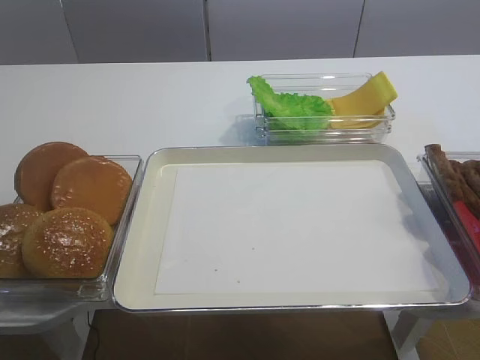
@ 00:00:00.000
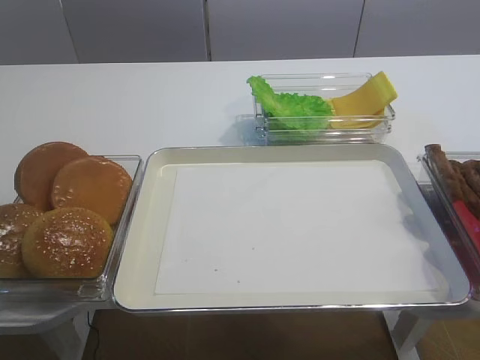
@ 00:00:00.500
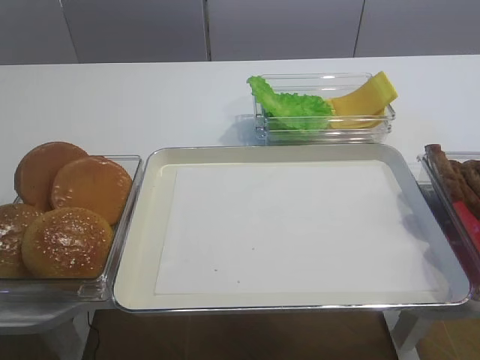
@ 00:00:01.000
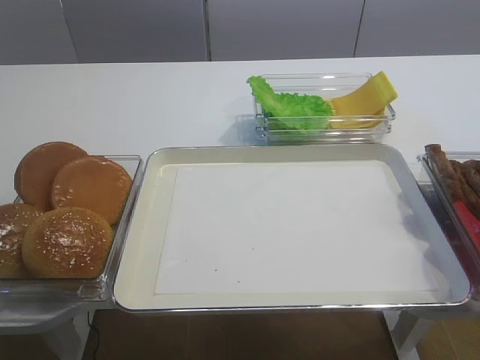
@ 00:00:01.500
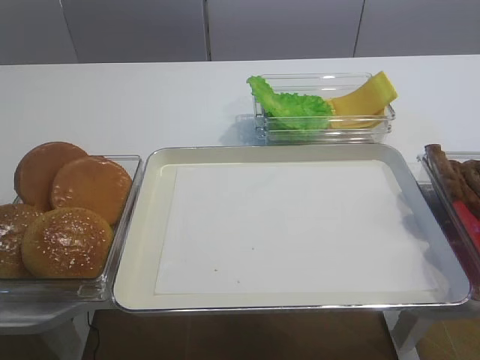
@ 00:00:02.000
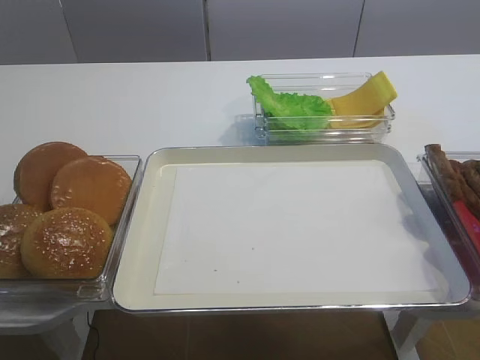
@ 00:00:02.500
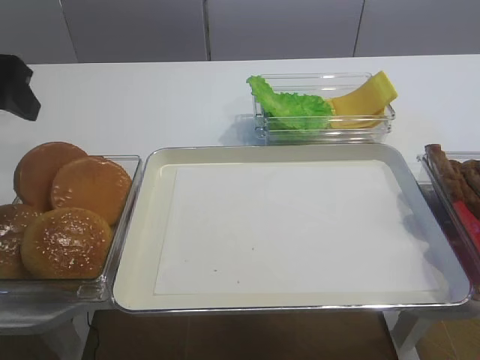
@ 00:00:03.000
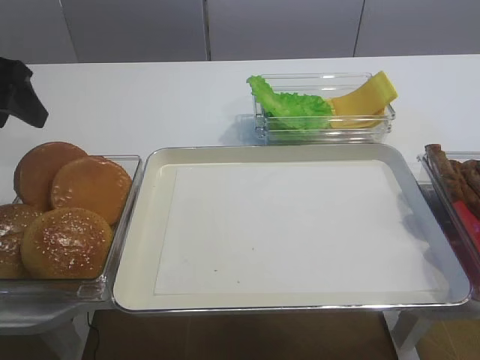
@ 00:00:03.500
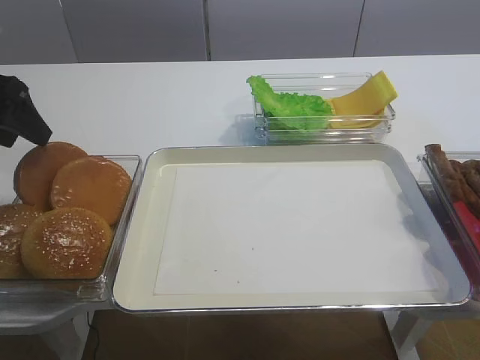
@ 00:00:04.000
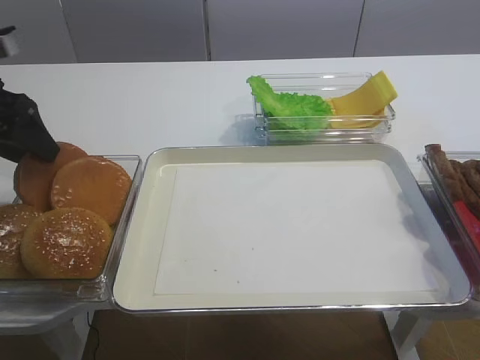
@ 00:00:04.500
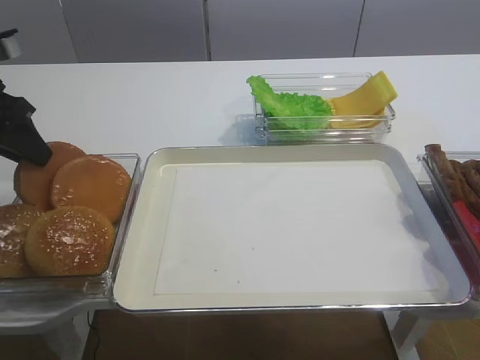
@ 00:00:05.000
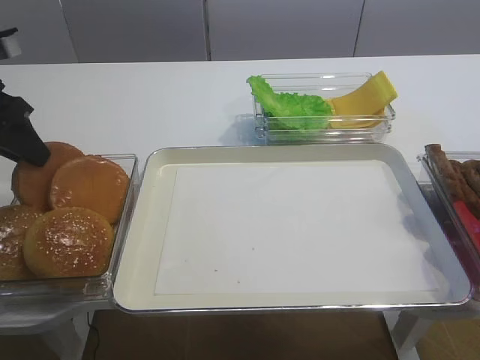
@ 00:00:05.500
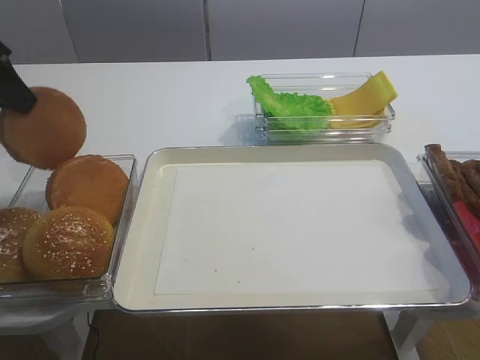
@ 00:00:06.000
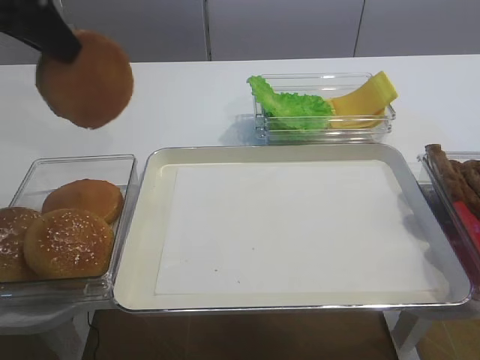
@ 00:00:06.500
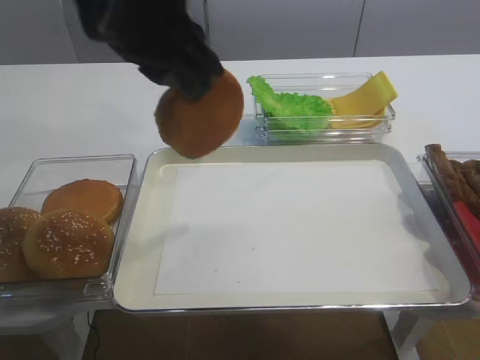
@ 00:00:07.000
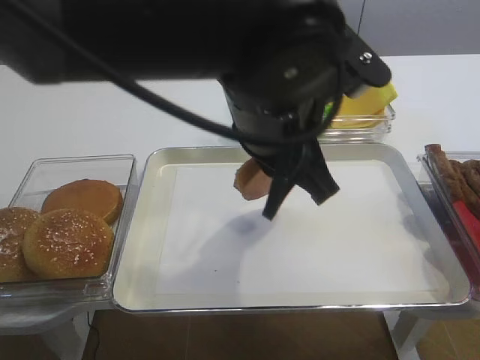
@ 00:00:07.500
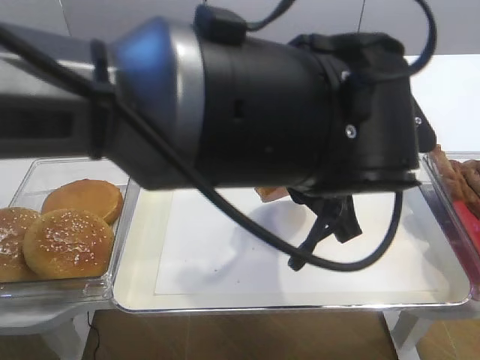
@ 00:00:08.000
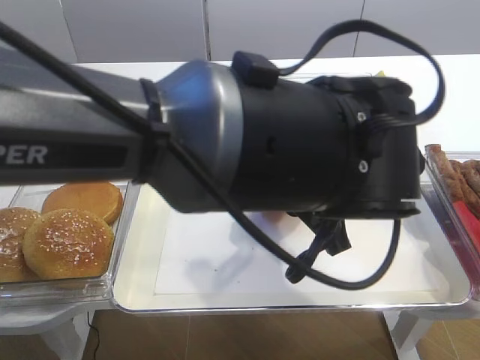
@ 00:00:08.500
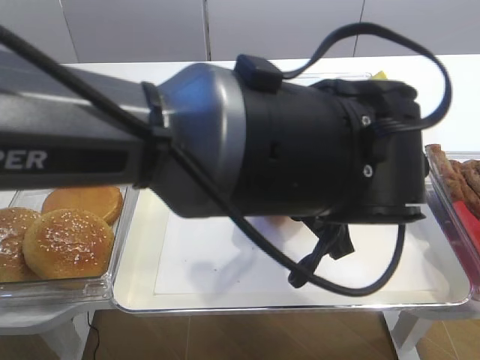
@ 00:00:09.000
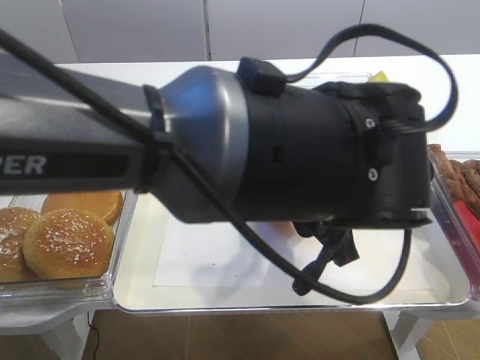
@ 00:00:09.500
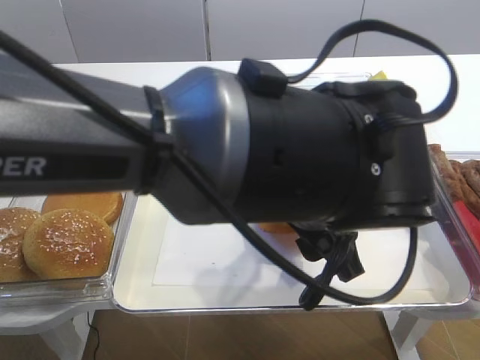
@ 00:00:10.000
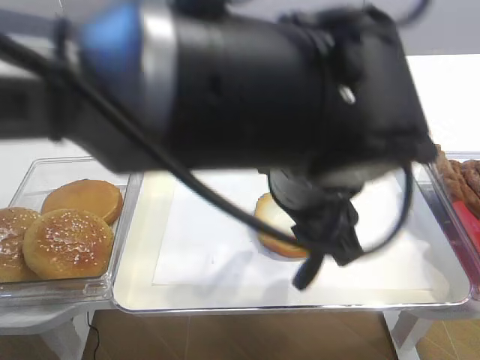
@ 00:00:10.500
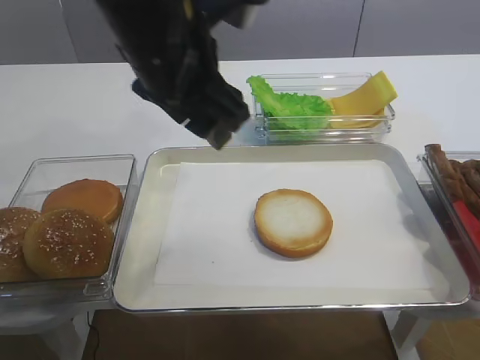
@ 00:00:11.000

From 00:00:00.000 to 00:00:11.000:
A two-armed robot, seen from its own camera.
Step, from 00:00:00.000 to 00:00:05.500: Pick up the bread slice with the left gripper.
Step, from 00:00:06.000 to 00:00:10.000: Place the bread slice on the tray with the left gripper.
From 00:00:02.000 to 00:00:03.500: The left gripper moves forward, approximately 20 cm.
From 00:00:03.500 to 00:00:05.500: The left gripper closes.
From 00:00:05.500 to 00:00:07.500: The left gripper moves to the right, roughly 35 cm.
From 00:00:09.000 to 00:00:11.000: The left gripper goes approximately 25 cm to the left and upward, and opens up.

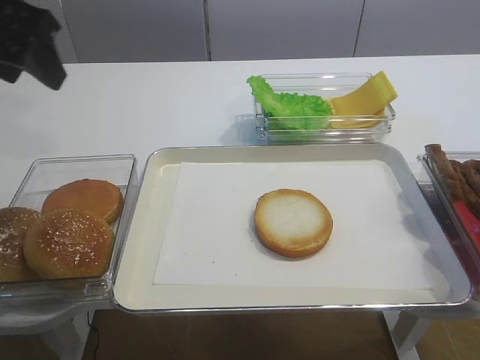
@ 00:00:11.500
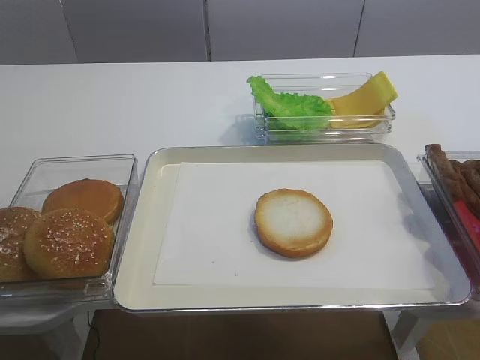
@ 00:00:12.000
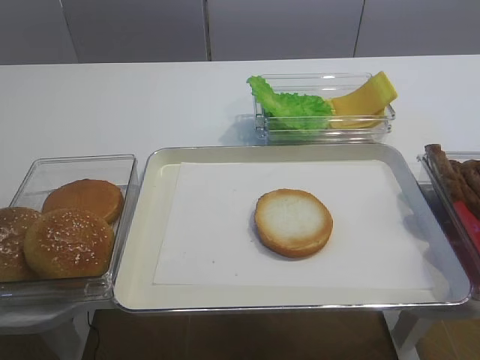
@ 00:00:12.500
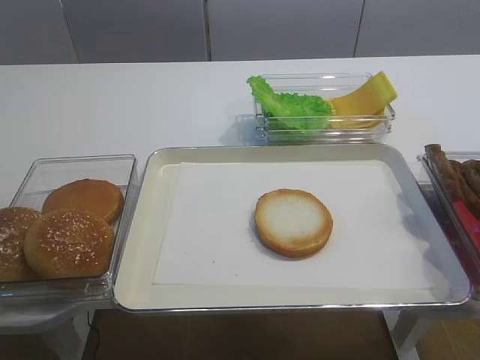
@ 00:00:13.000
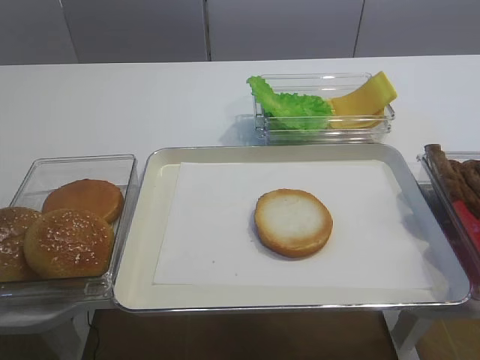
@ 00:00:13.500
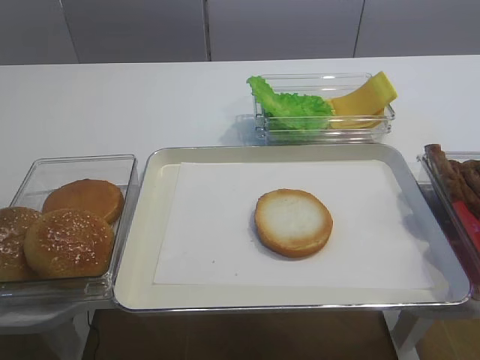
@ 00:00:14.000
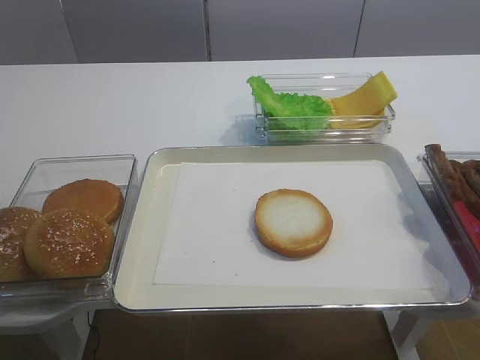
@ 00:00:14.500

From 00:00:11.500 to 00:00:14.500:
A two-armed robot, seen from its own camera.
From 00:00:11.500 to 00:00:13.000: The left gripper moves backward, approximately 25 cm.

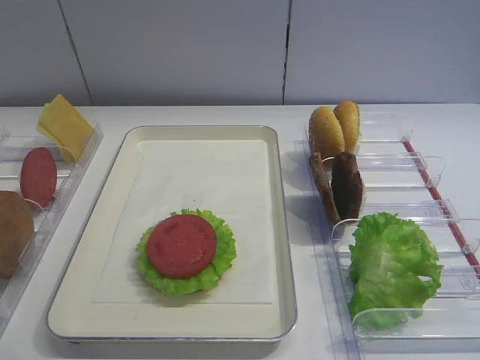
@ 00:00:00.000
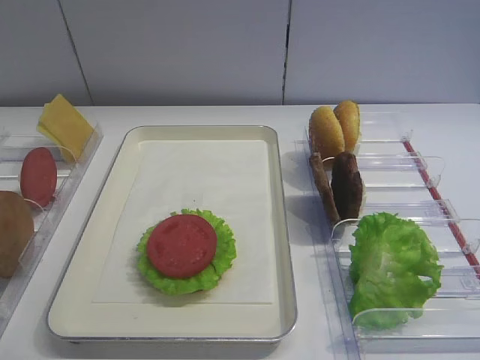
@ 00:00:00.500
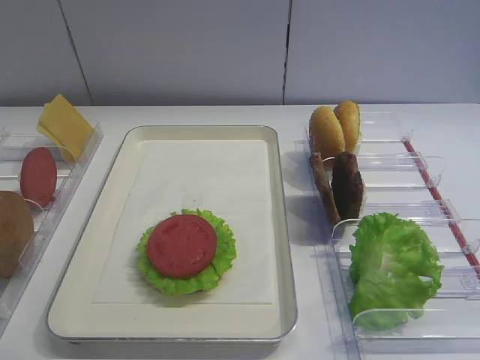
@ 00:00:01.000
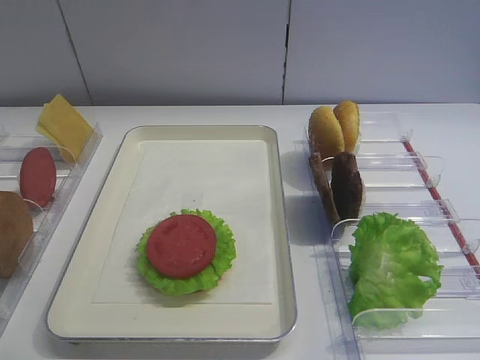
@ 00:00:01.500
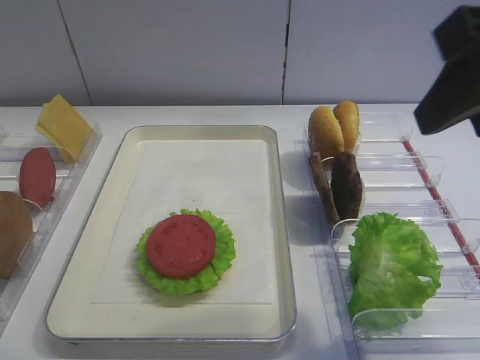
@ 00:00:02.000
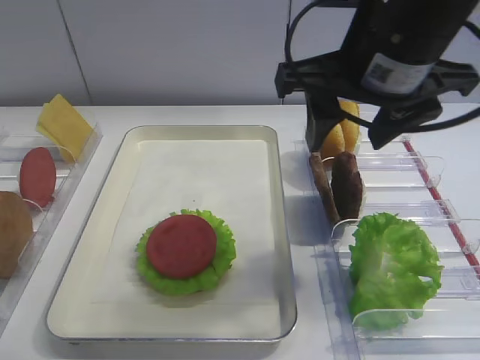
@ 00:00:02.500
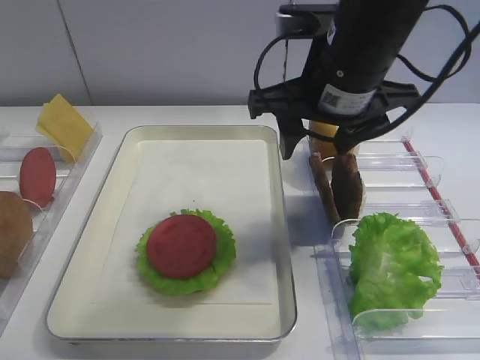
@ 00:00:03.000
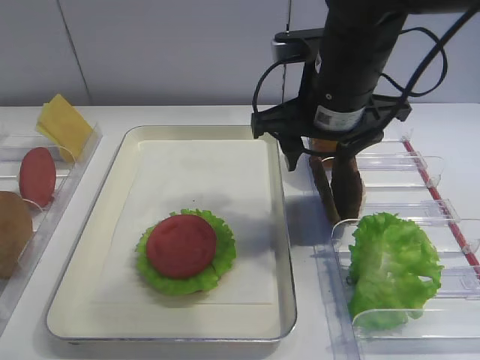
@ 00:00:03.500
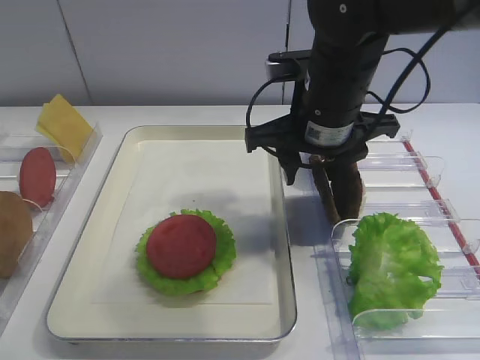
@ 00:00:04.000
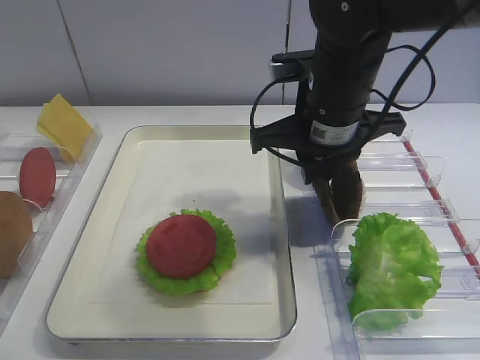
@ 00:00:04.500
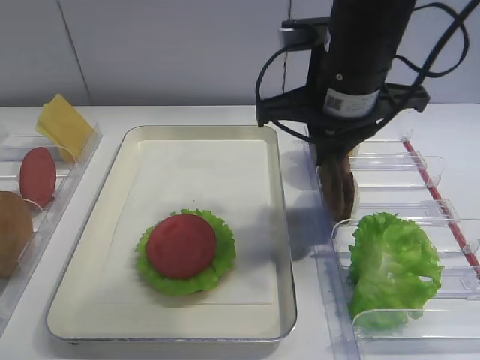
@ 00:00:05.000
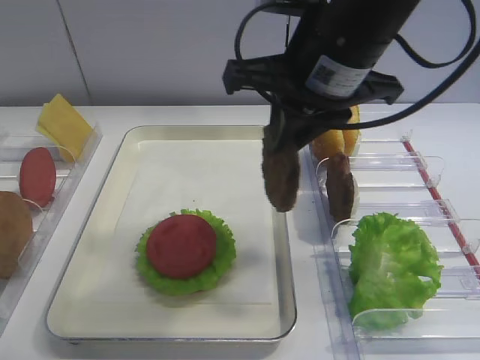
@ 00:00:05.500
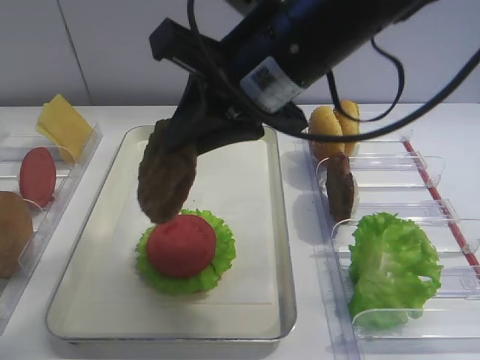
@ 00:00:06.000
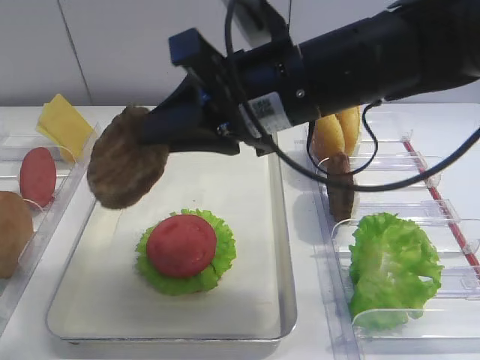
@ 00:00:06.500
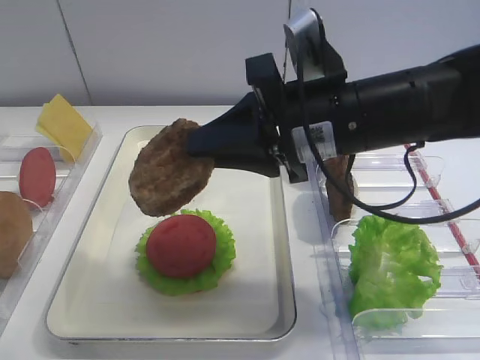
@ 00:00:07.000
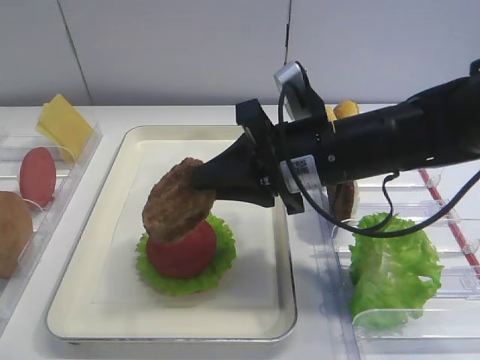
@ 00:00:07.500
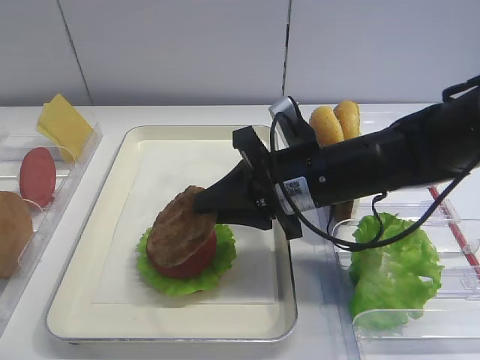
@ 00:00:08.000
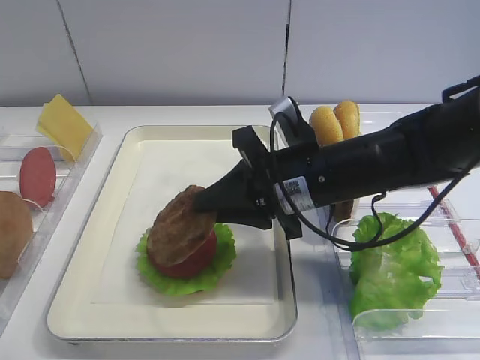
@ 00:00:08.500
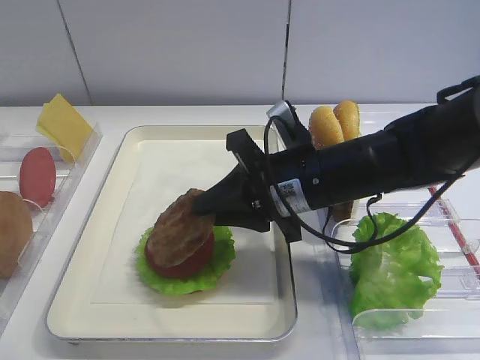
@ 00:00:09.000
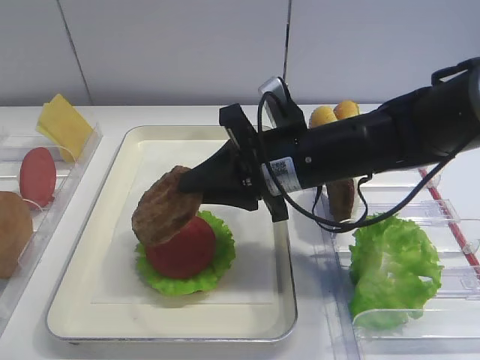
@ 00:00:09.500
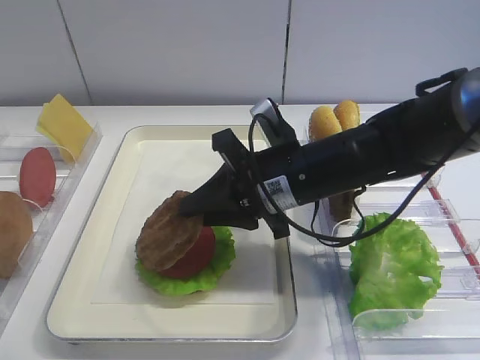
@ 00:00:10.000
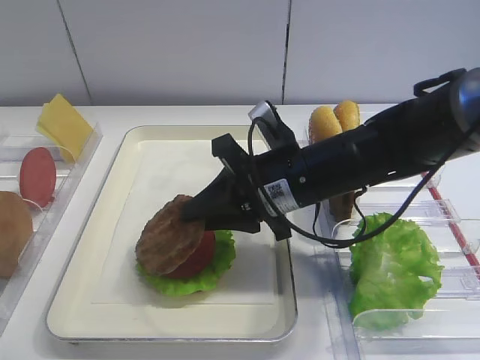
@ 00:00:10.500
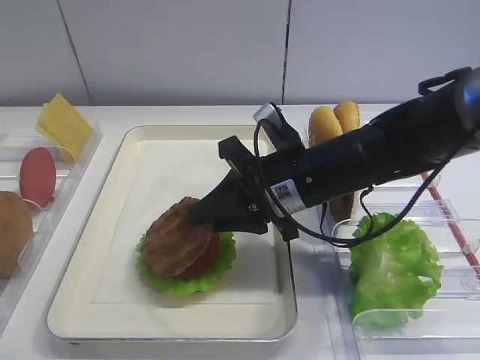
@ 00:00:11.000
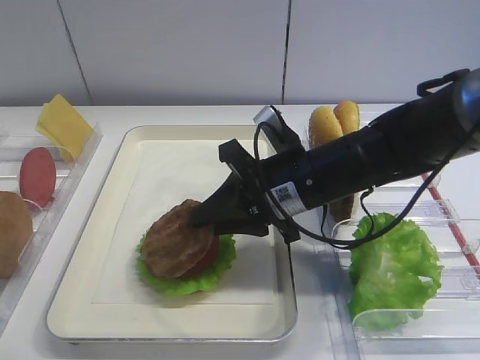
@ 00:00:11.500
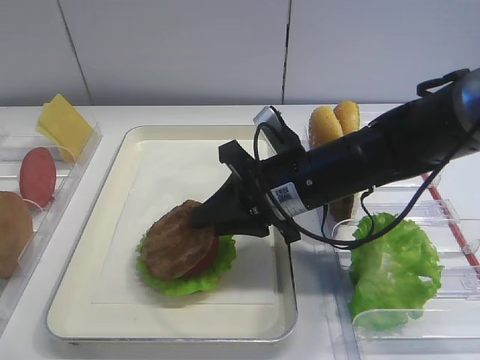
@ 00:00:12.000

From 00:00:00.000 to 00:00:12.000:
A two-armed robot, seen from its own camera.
Step, from 00:00:00.000 to 00:00:04.500: Pick up the cutlet with the right gripper.
From 00:00:02.000 to 00:00:04.000: The right gripper travels forward, downward and to the left by about 20 cm.
From 00:00:04.000 to 00:00:06.000: The right gripper heads upward and backward, covering roughly 10 cm, and closes up.
From 00:00:06.000 to 00:00:08.000: The right gripper is displaced downward by about 15 cm.
From 00:00:08.000 to 00:00:10.000: The grippers move only a little.
From 00:00:10.000 to 00:00:12.000: Neither gripper changes place.
